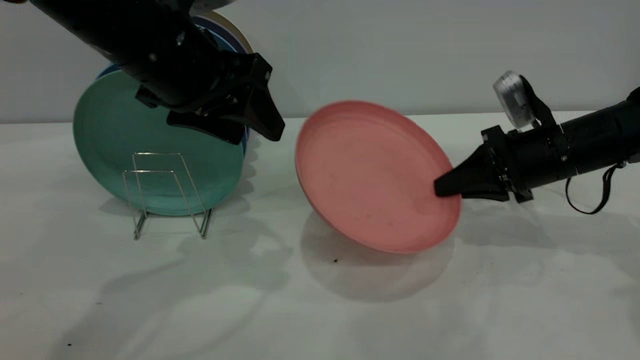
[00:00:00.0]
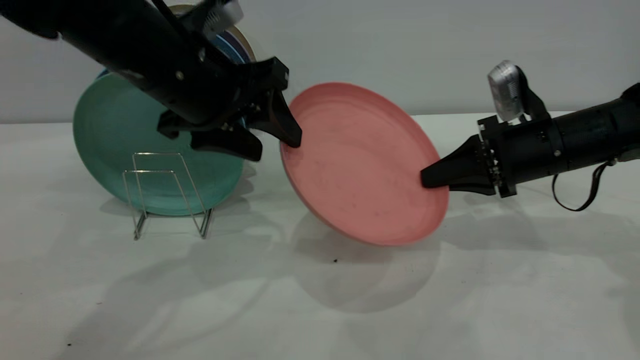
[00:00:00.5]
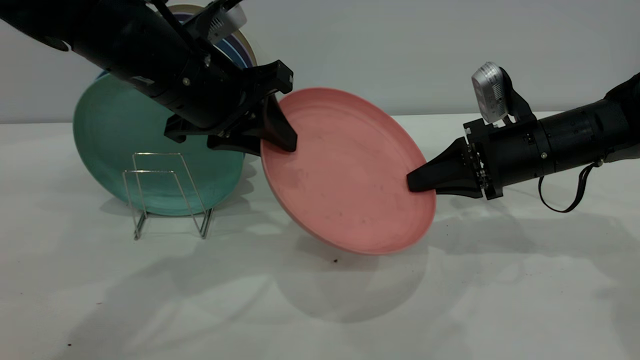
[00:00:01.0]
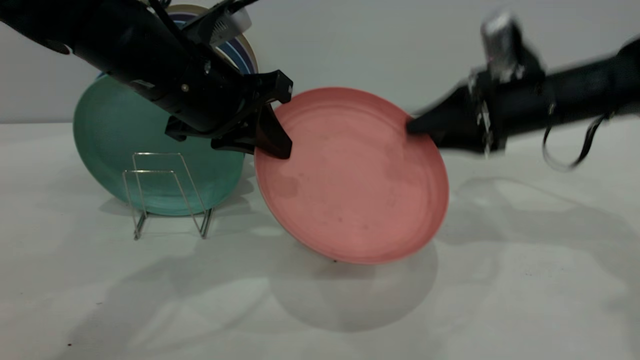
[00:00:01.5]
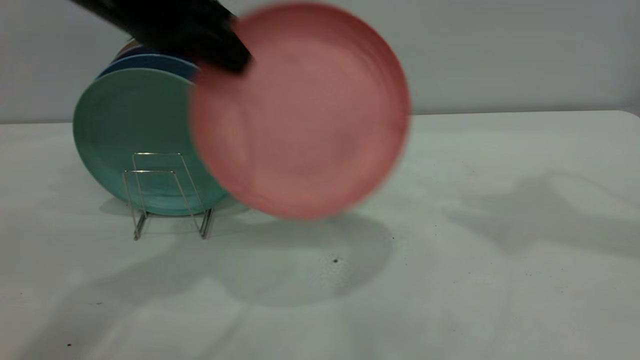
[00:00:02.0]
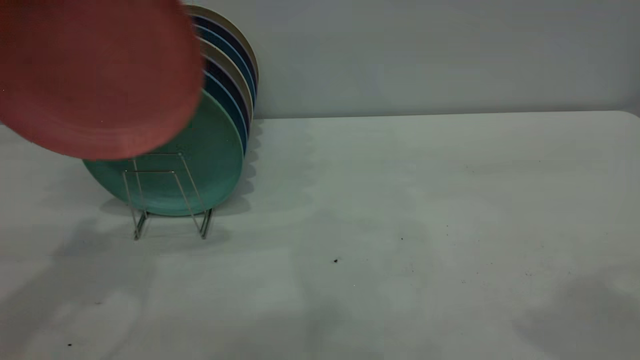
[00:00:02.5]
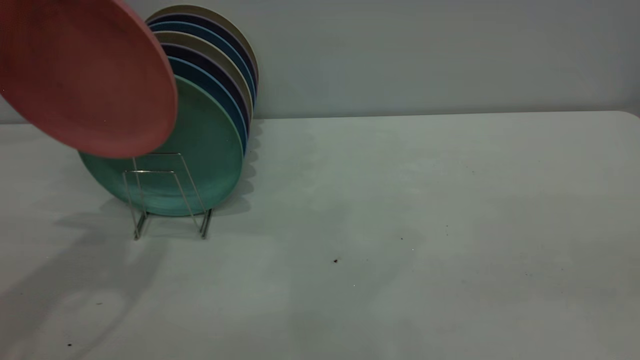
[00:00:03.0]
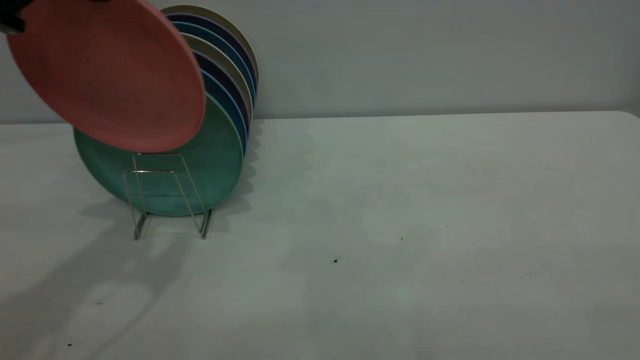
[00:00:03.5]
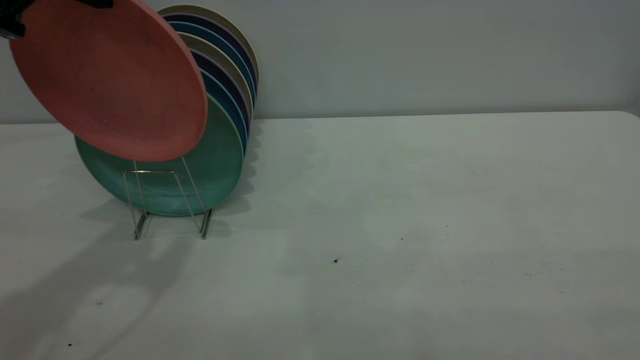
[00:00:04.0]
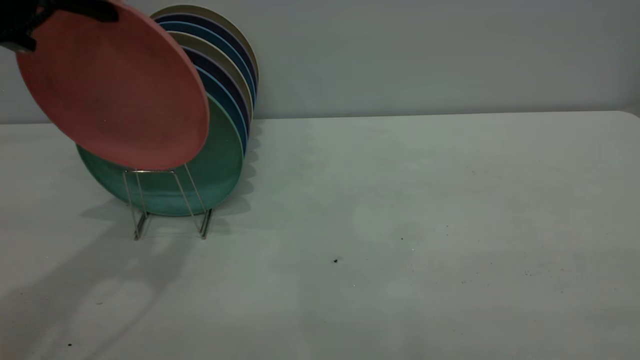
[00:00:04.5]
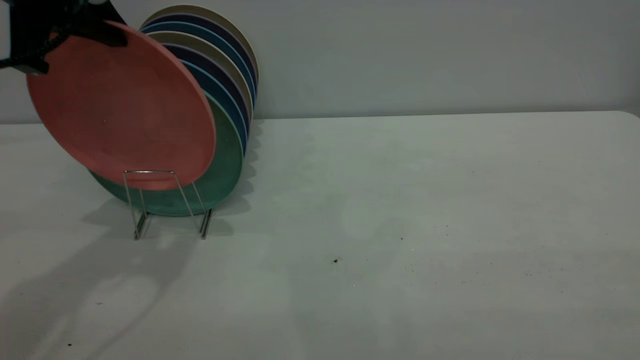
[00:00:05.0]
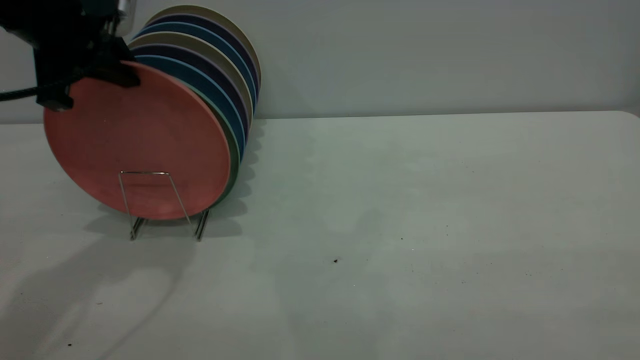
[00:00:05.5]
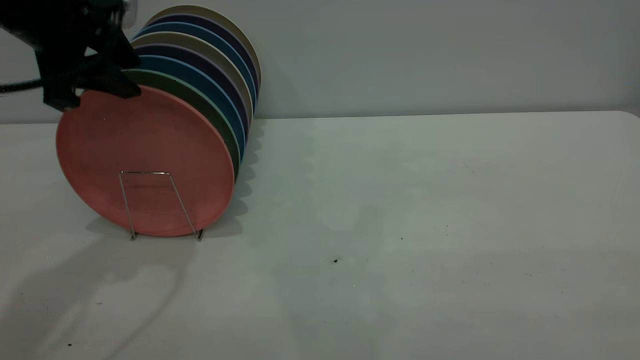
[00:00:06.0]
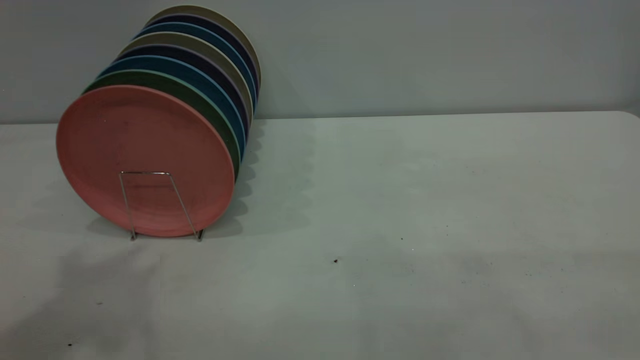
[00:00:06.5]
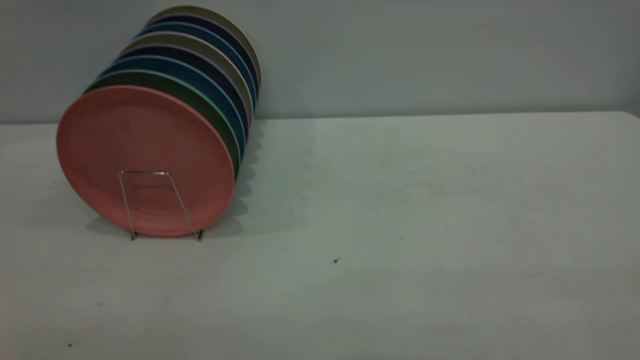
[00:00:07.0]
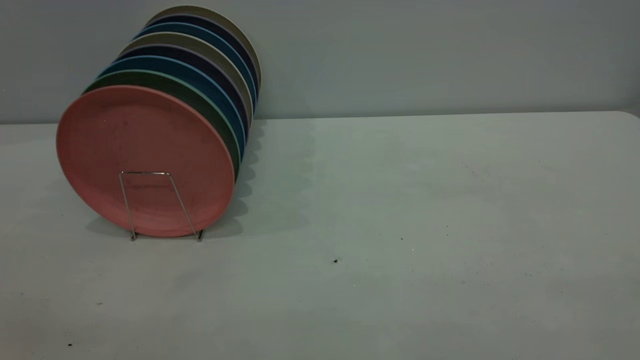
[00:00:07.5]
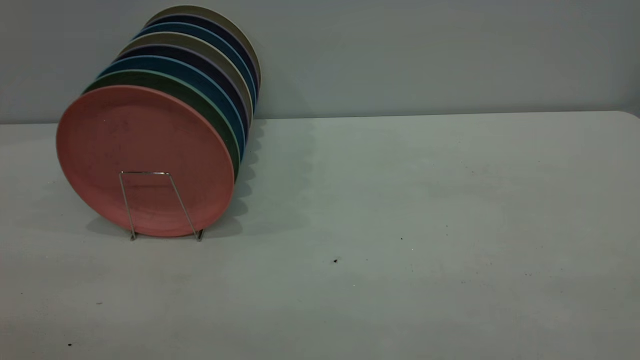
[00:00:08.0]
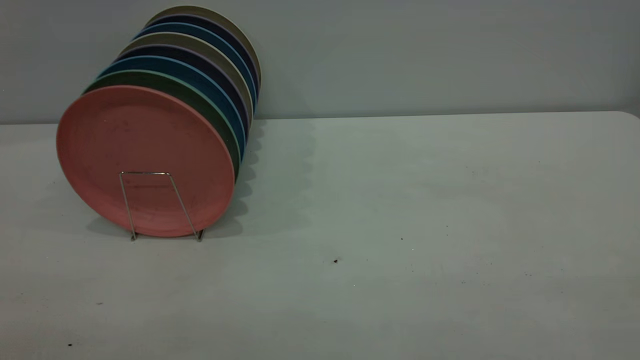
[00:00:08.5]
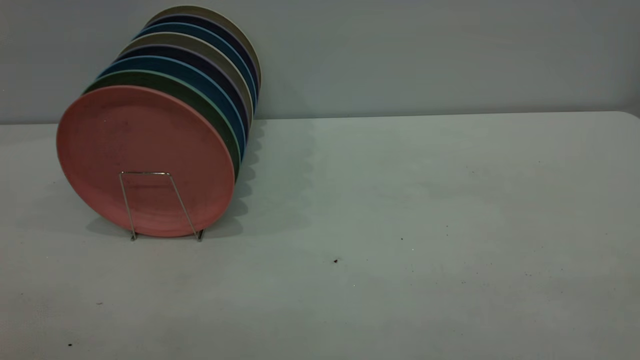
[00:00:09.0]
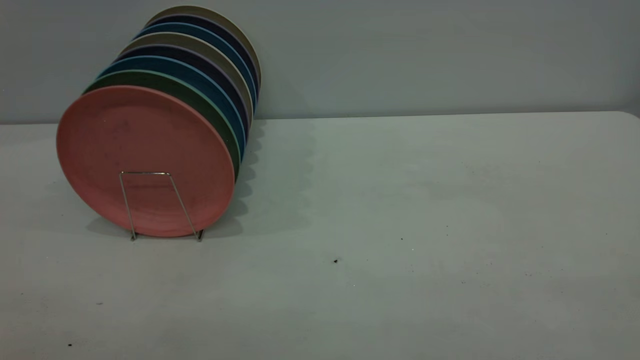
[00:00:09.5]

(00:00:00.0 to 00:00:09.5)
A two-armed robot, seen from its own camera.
Task of the whole recording: the right gripper grasp the pink plate, the right gripper pass the pink plate to the left gripper, and the left gripper place the pink plate on the plate rack.
Step, 00:00:00.0 - 00:00:02.5: Pass the plate from the right gripper to the left gripper.
Step, 00:00:03.0 - 00:00:06.0: Place the plate on the shelf.
00:00:00.0 - 00:00:02.0: The right gripper heads upward, covering about 30 cm, and opens its fingers. The left gripper shifts some 5 cm upward, and closes.
00:00:02.0 - 00:00:04.0: The left gripper moves to the left, approximately 5 cm. The right gripper shifts some 35 cm backward, and closes its fingers.
00:00:04.0 - 00:00:05.5: The left gripper moves downward, approximately 5 cm.
00:00:05.5 - 00:00:07.5: The left gripper is displaced backward by some 30 cm, and opens.

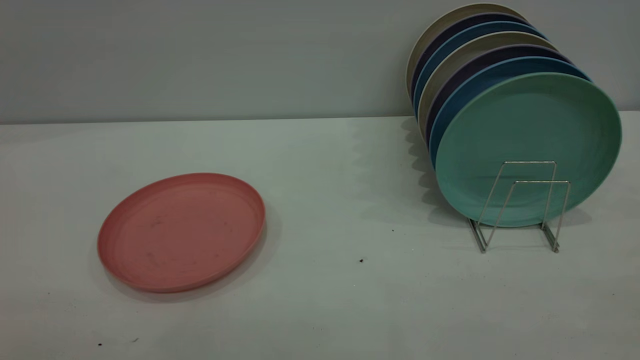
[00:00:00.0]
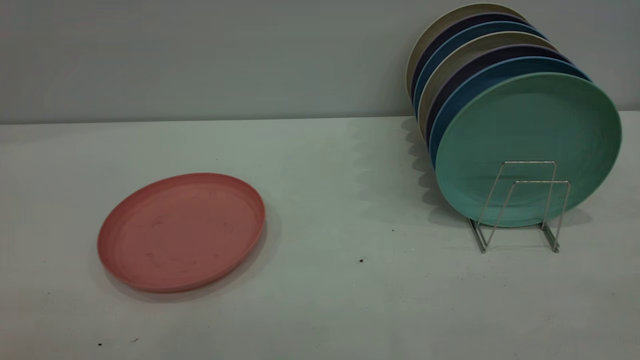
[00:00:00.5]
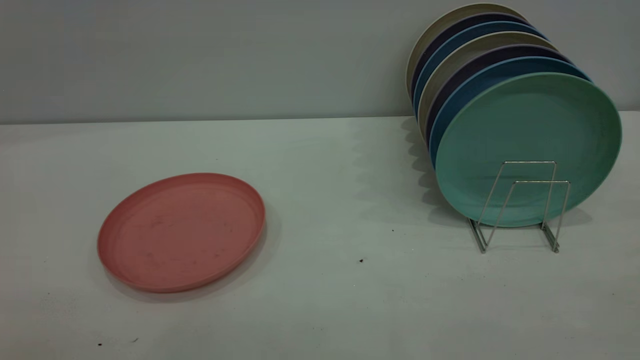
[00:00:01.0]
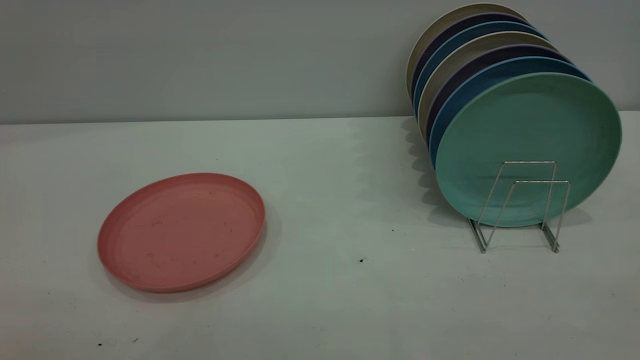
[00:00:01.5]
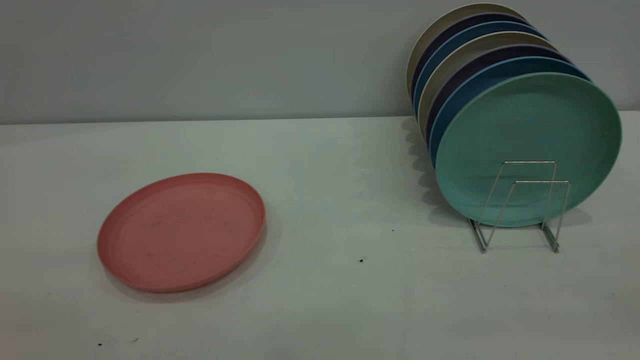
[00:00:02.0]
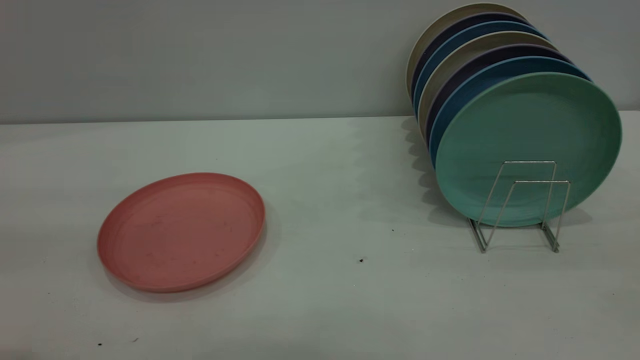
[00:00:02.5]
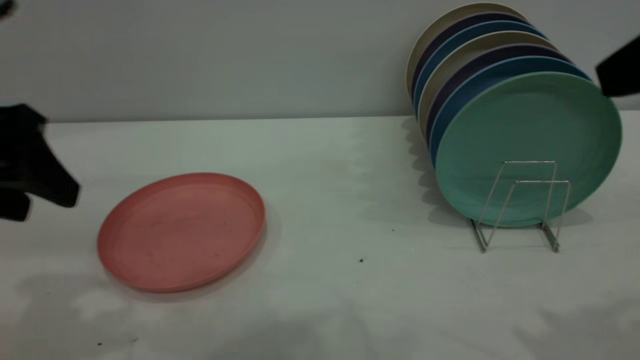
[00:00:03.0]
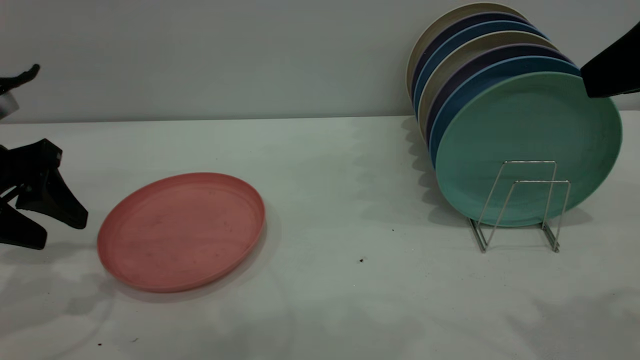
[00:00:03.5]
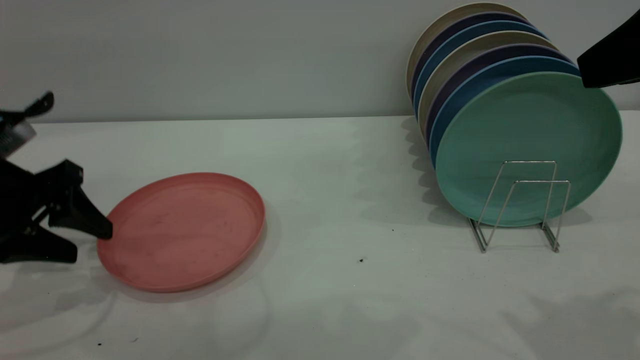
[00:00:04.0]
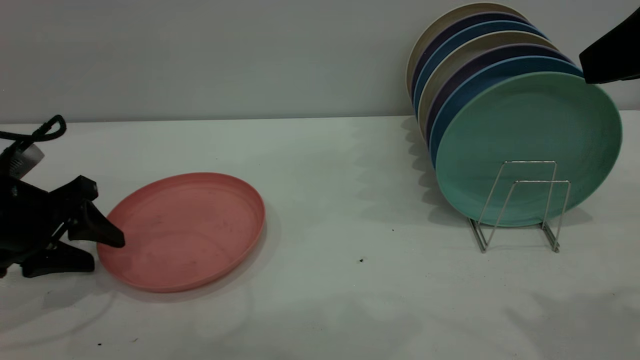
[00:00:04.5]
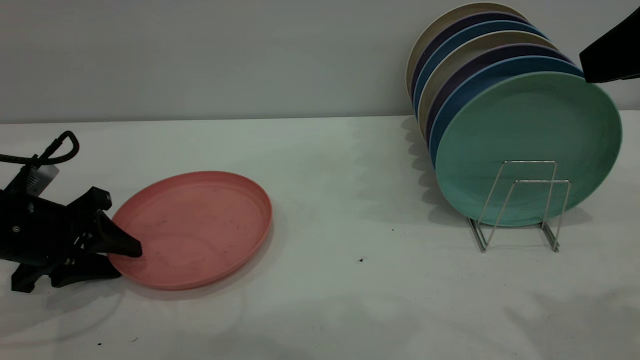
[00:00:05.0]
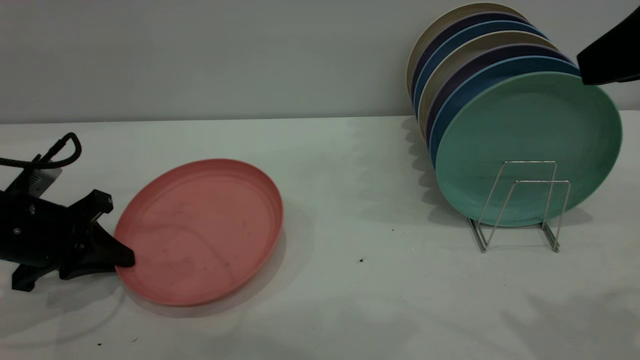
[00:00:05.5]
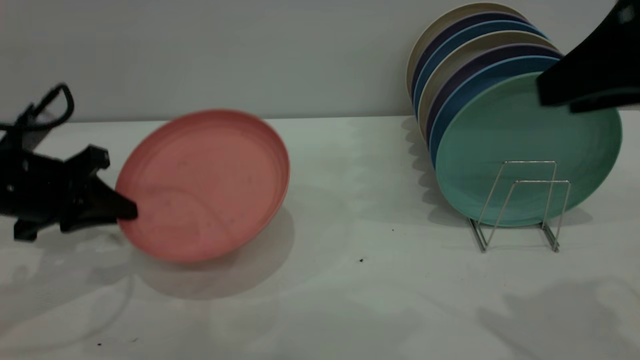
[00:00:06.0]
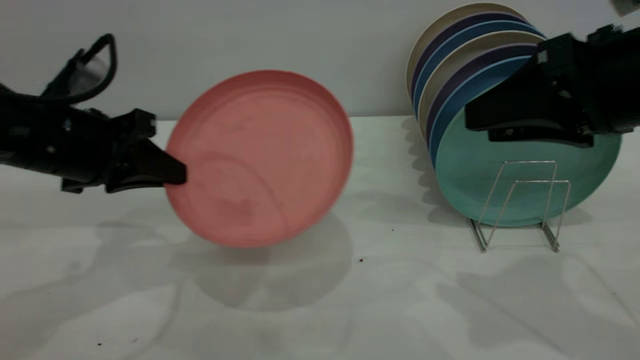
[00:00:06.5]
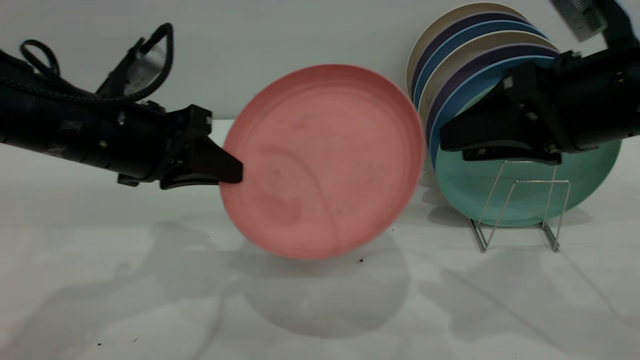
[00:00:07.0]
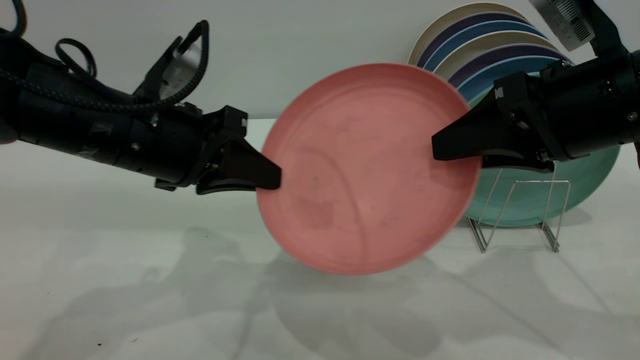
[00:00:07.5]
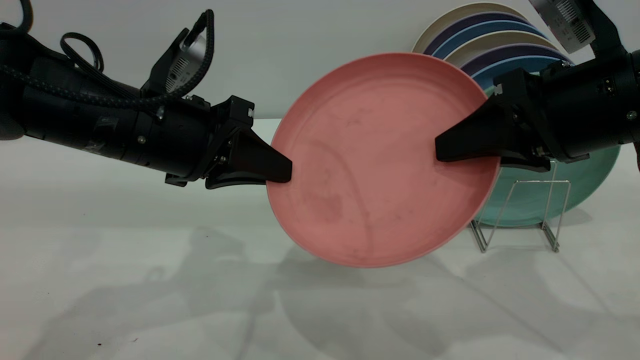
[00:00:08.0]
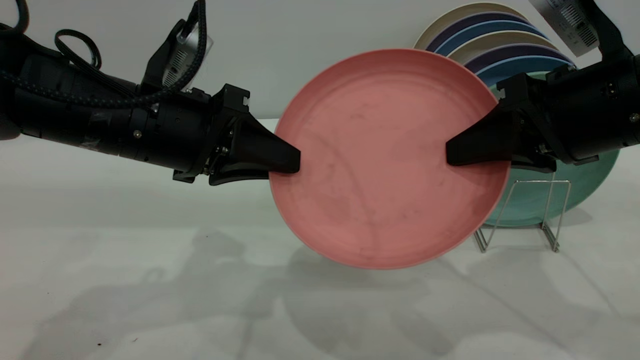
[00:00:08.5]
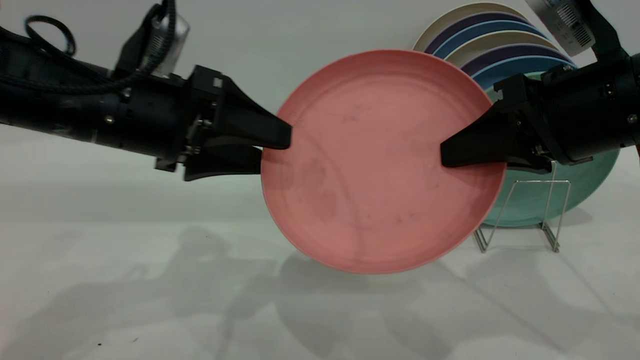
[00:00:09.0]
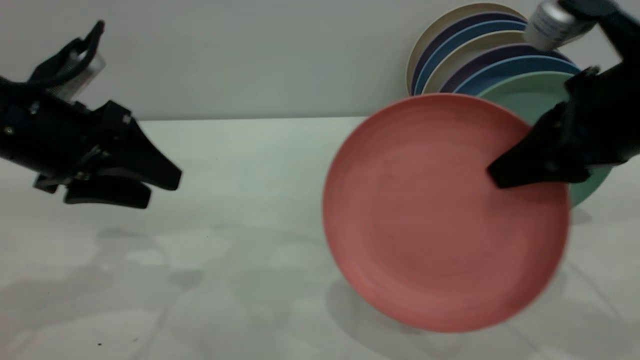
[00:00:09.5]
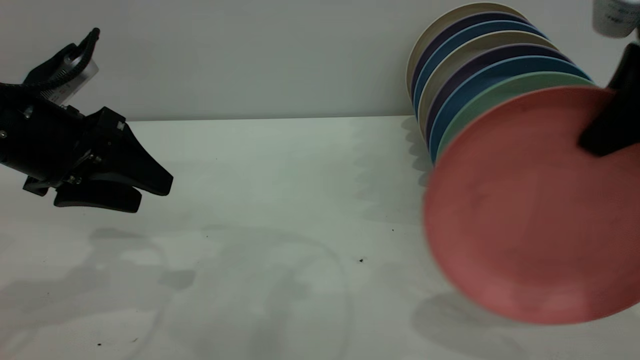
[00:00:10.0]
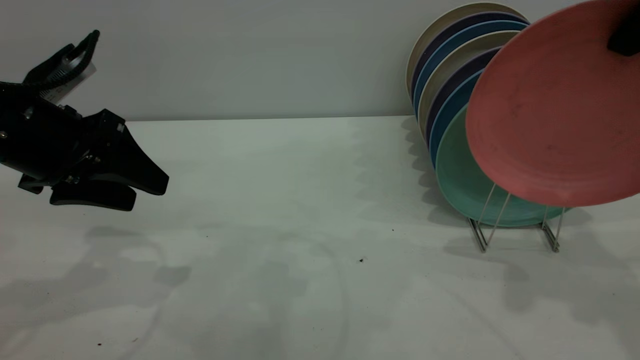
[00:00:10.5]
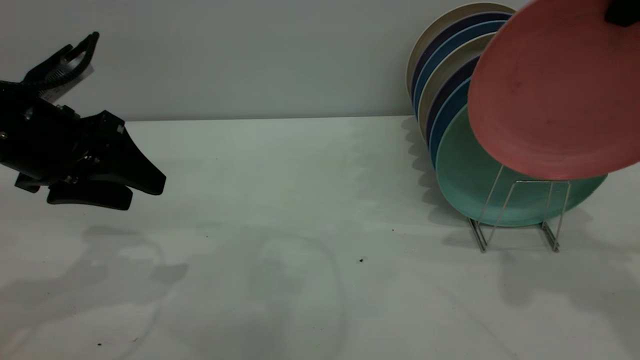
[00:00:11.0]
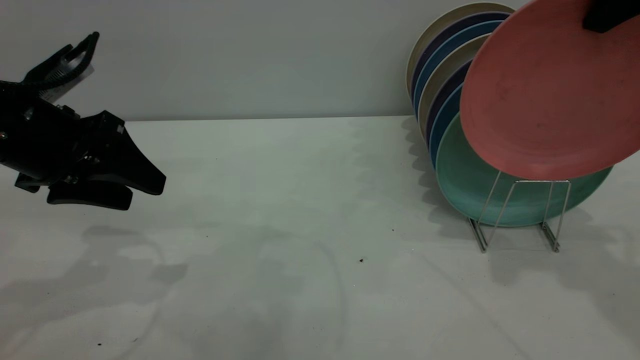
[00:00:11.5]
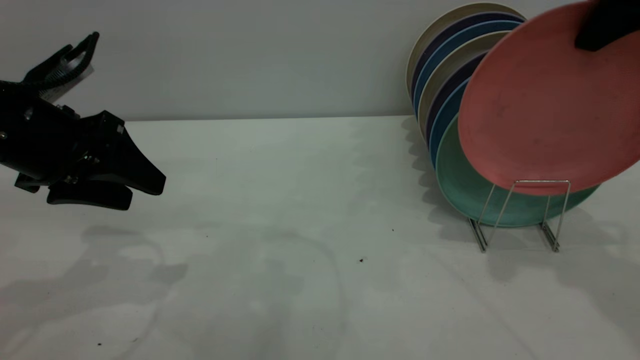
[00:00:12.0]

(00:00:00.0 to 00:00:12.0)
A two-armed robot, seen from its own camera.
Task of the whole recording: the left gripper grasp the pink plate, the left gripper pass the pink plate to the right gripper, and the right gripper place the pink plate on the plate rack.
Step, 00:00:00.0 - 00:00:05.5: Pick up the plate with the left gripper.
Step, 00:00:06.5 - 00:00:09.0: Pass the plate from the left gripper to the right gripper.
00:00:02.0 - 00:00:04.0: The left gripper heads forward and downward, covering some 35 cm. Meanwhile the right gripper goes approximately 20 cm forward.
00:00:04.0 - 00:00:06.0: The left gripper closes up.
00:00:06.0 - 00:00:08.0: The right gripper travels downward by about 10 cm, and closes, while the left gripper goes approximately 15 cm to the right.
00:00:08.0 - 00:00:10.0: The right gripper heads upward, covering approximately 10 cm; the left gripper is displaced to the left by some 10 cm, and opens.
00:00:10.0 - 00:00:12.0: The right gripper heads forward, covering about 10 cm.
